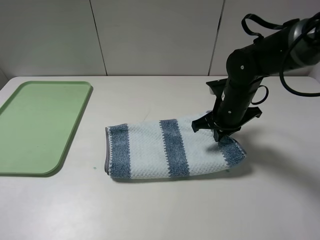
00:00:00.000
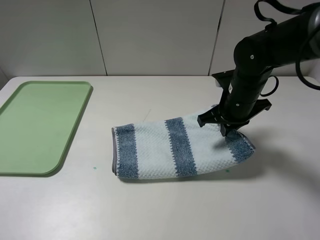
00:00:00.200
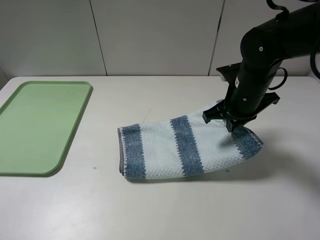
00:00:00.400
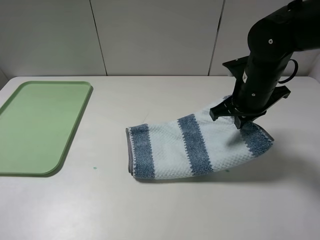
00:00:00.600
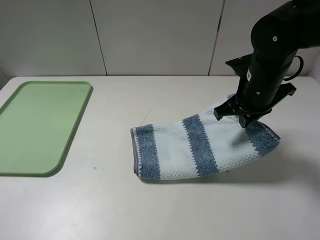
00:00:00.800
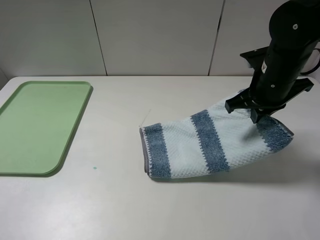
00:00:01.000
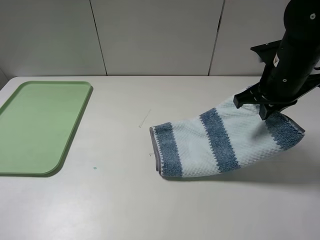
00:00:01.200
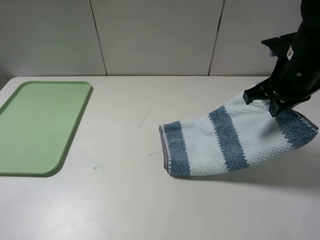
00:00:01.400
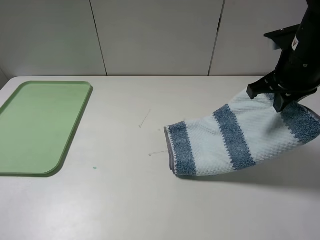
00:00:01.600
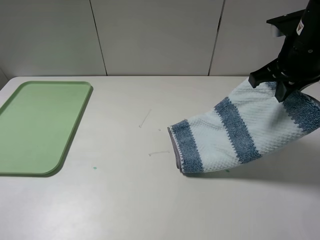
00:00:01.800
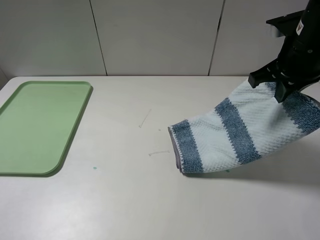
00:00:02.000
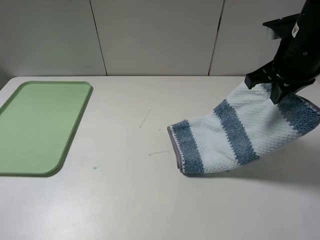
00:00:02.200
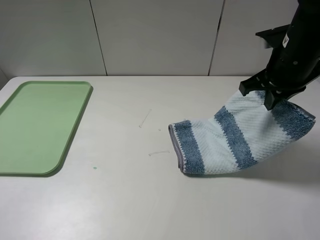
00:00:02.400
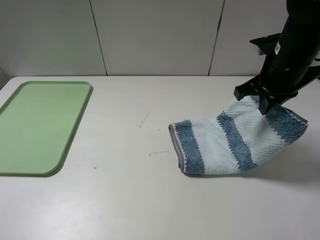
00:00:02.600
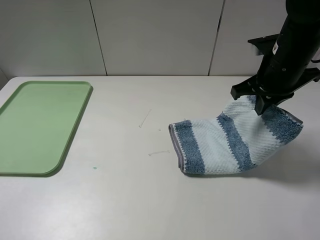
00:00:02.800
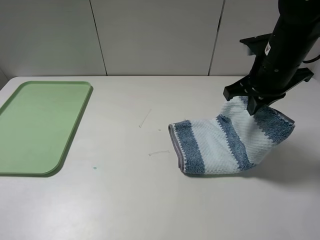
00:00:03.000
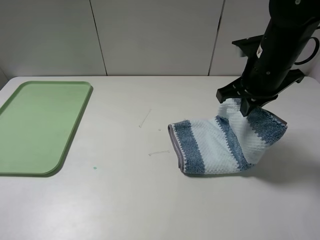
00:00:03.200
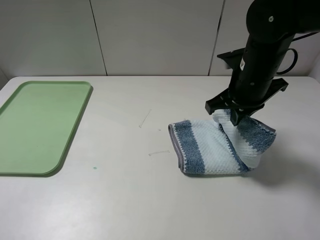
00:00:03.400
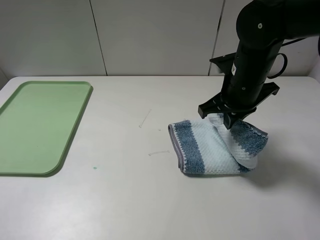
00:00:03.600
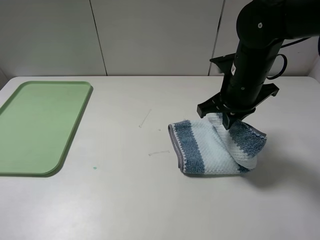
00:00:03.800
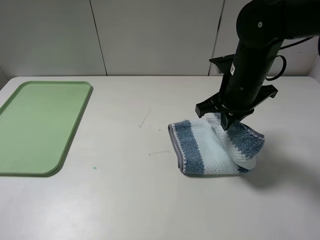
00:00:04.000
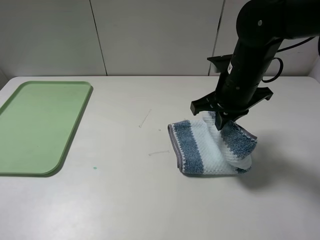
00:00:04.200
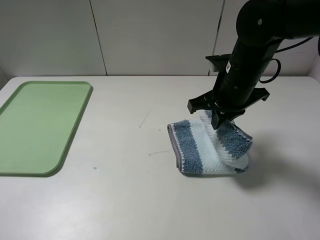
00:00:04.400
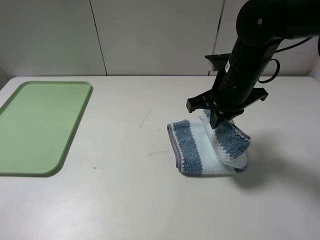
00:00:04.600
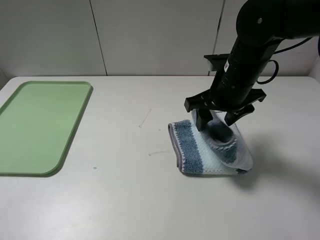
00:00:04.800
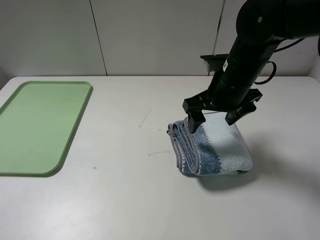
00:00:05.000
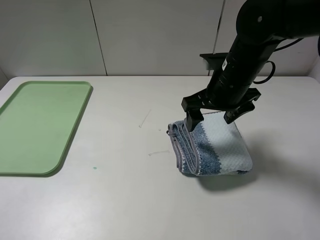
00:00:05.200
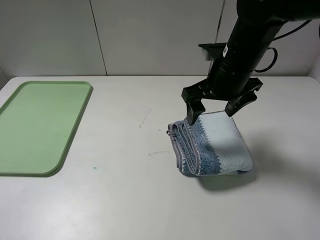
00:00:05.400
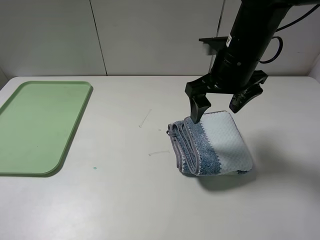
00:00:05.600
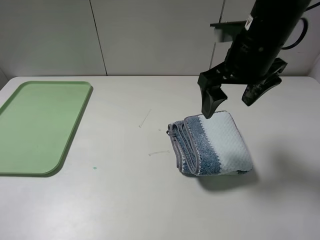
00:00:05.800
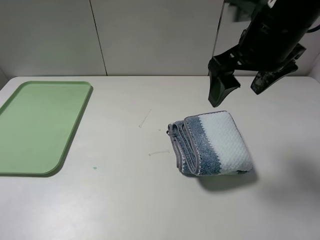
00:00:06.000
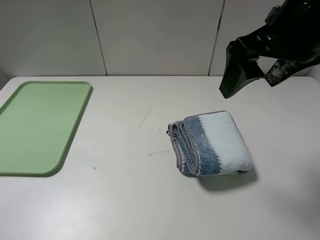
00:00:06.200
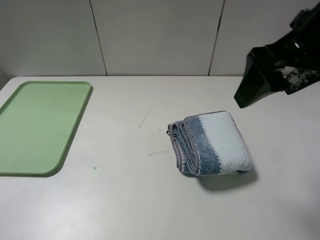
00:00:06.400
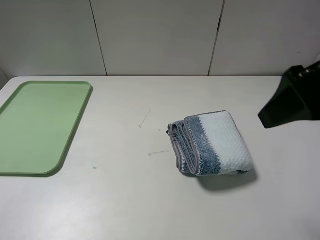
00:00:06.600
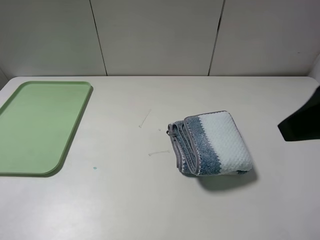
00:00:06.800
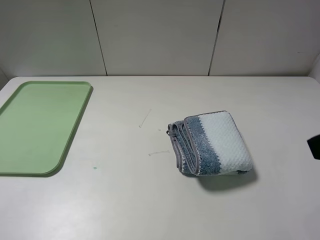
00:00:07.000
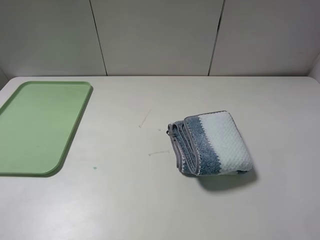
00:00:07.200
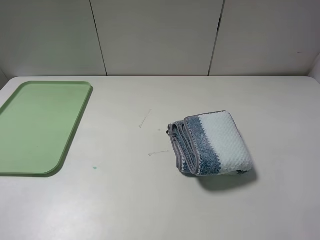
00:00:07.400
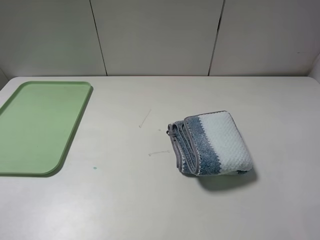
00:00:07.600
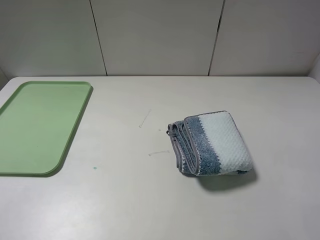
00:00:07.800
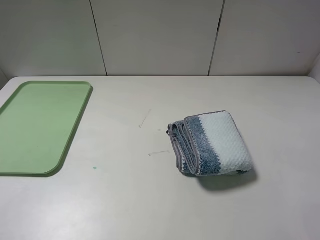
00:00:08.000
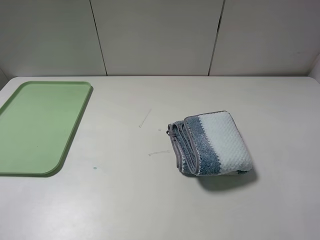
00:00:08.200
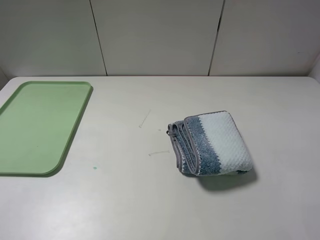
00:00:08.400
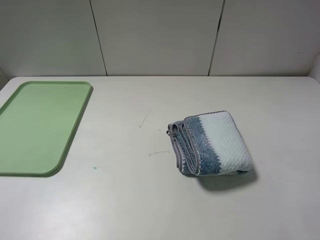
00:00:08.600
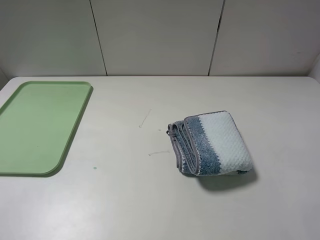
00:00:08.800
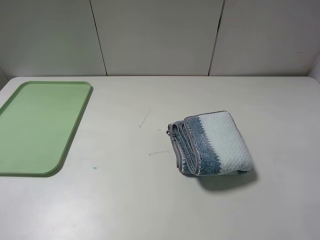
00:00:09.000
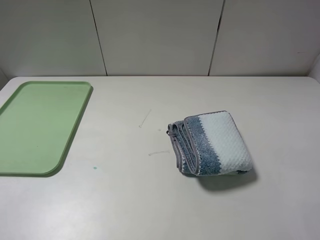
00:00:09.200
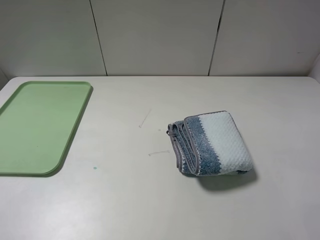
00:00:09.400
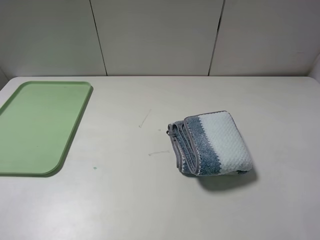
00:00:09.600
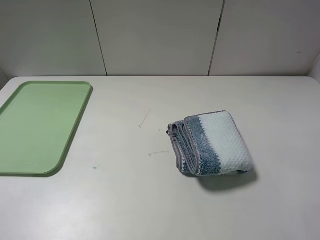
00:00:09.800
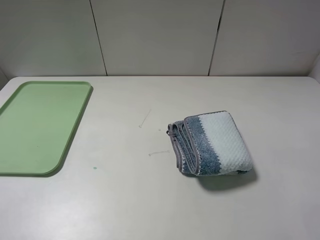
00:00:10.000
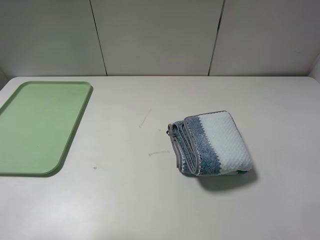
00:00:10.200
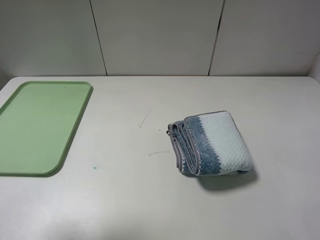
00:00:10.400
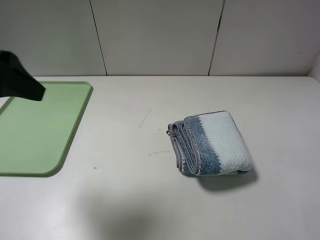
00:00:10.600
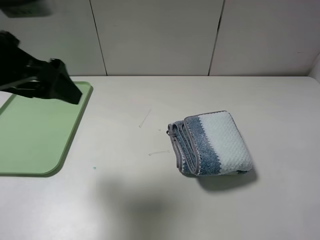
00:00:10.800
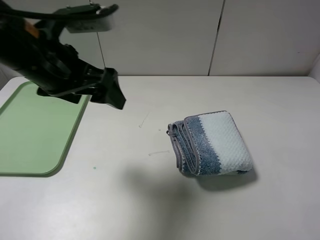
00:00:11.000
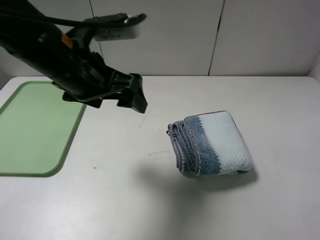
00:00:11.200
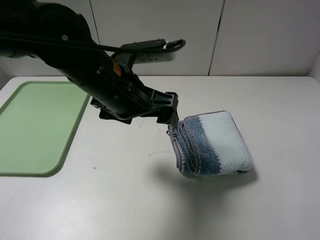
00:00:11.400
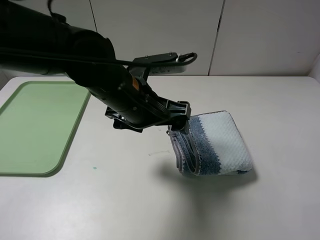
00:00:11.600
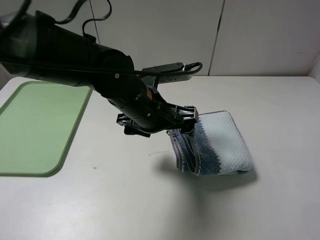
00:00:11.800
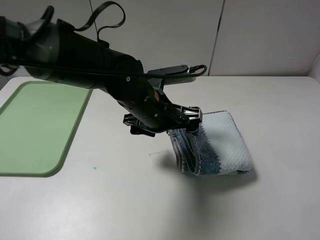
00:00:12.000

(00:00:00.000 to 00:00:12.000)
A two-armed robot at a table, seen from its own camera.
Step, 00:00:00.000 - 00:00:05.200: Fold the blue white towel from right to left with right gripper.
00:00:00.000 - 00:00:01.600: The right gripper heads upward and to the right, covering approximately 15 cm.
00:00:01.600 - 00:00:03.000: The grippers make only small movements.
00:00:03.000 - 00:00:04.400: The right gripper shifts roughly 5 cm to the left.
00:00:04.400 - 00:00:06.000: The right gripper shifts approximately 10 cm upward, and opens its fingers.
00:00:06.000 - 00:00:07.600: The right gripper travels backward and to the right by roughly 30 cm.
00:00:09.000 - 00:00:10.400: The left gripper travels forward and upward by approximately 15 cm.
00:00:10.400 - 00:00:12.000: The left gripper is displaced to the right, downward and forward by roughly 35 cm.

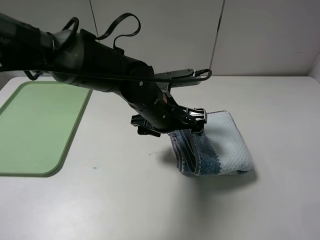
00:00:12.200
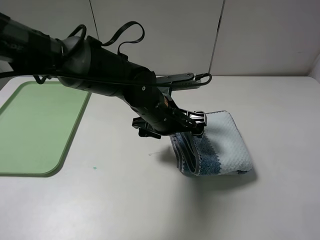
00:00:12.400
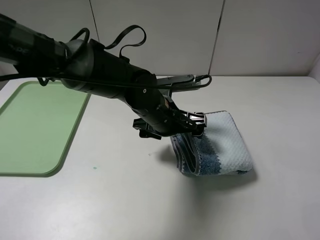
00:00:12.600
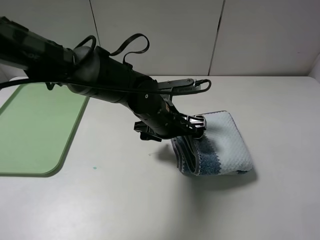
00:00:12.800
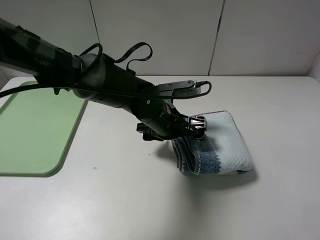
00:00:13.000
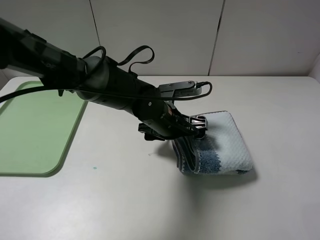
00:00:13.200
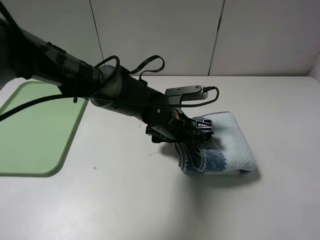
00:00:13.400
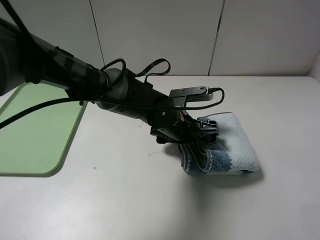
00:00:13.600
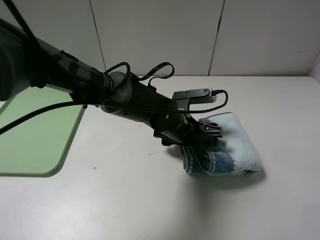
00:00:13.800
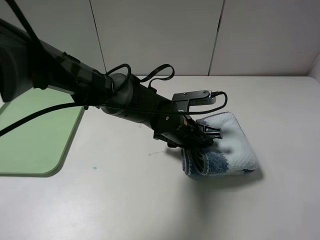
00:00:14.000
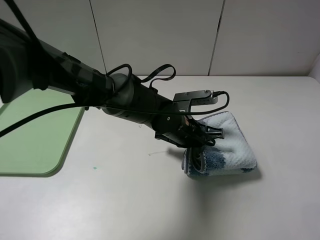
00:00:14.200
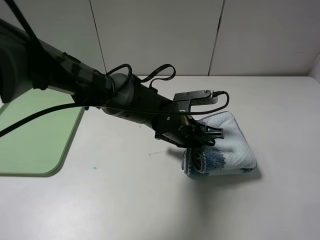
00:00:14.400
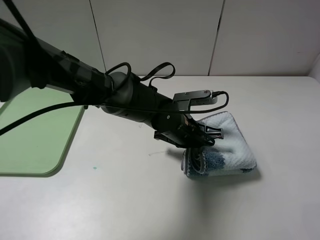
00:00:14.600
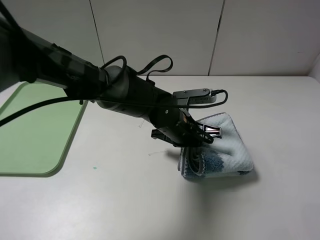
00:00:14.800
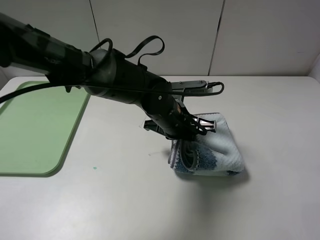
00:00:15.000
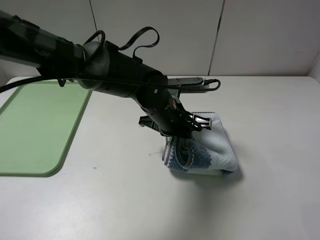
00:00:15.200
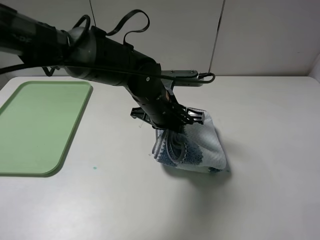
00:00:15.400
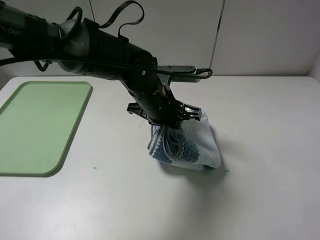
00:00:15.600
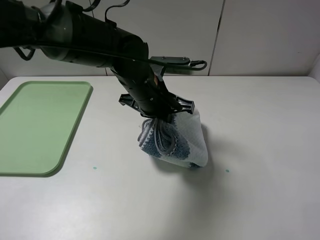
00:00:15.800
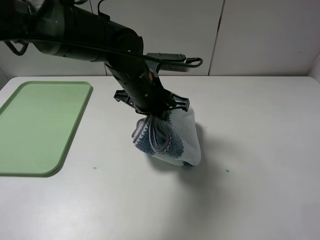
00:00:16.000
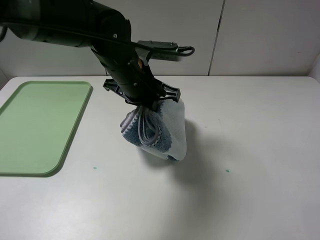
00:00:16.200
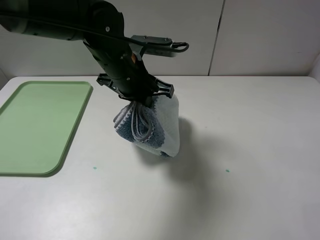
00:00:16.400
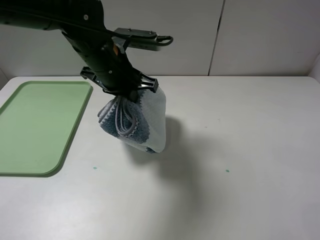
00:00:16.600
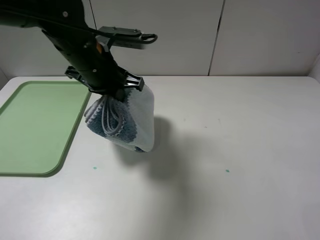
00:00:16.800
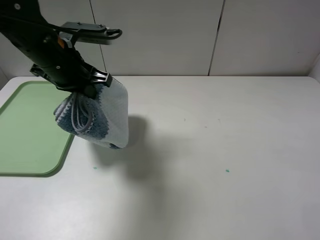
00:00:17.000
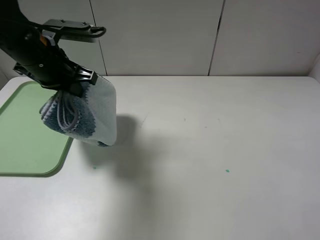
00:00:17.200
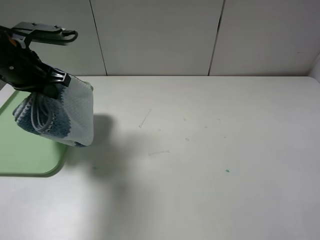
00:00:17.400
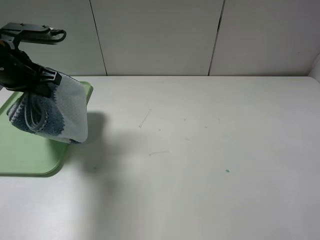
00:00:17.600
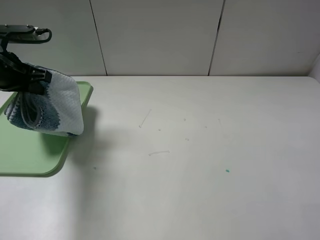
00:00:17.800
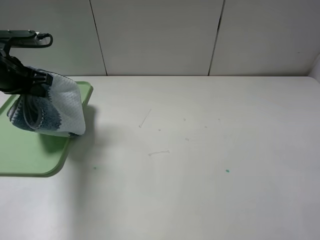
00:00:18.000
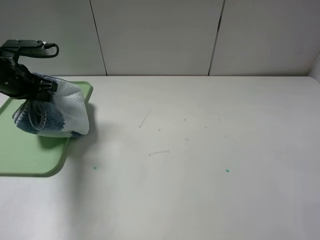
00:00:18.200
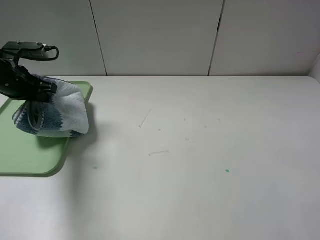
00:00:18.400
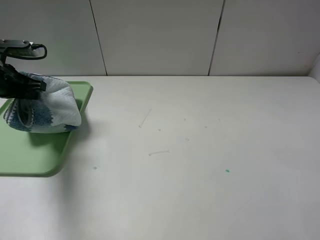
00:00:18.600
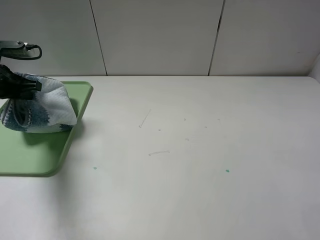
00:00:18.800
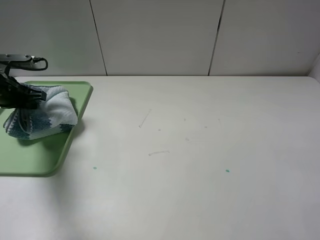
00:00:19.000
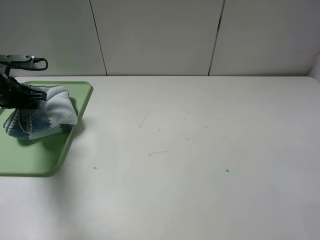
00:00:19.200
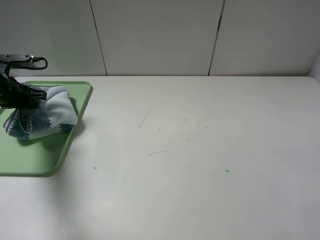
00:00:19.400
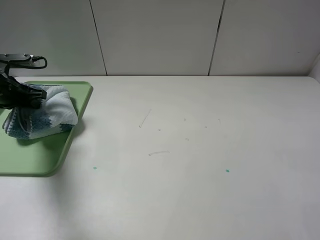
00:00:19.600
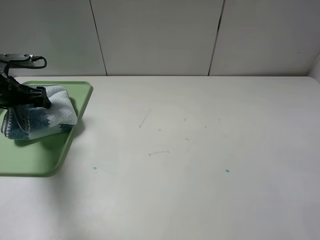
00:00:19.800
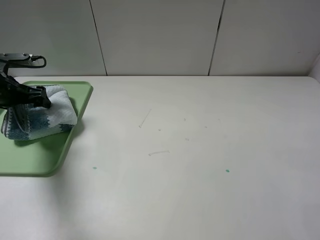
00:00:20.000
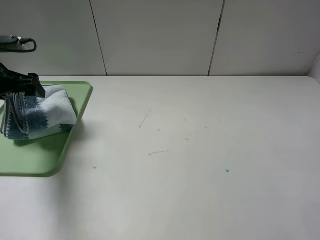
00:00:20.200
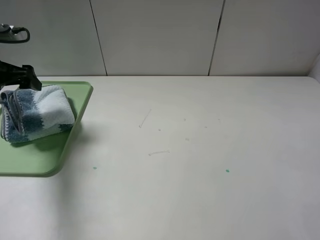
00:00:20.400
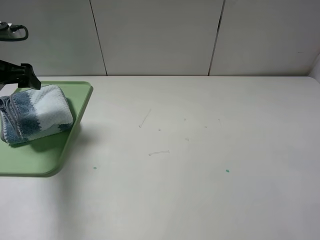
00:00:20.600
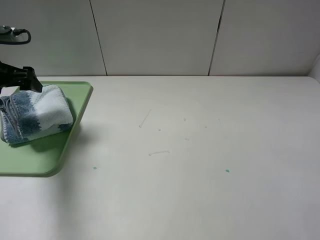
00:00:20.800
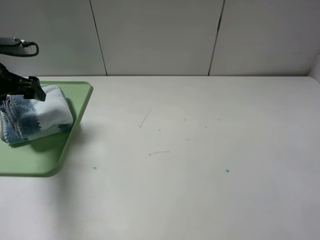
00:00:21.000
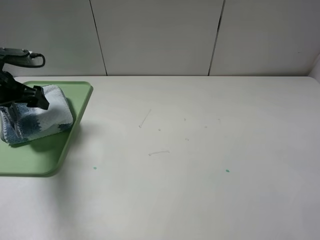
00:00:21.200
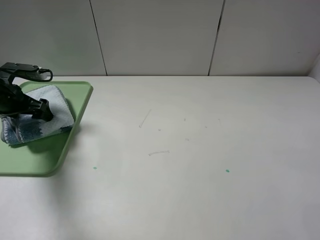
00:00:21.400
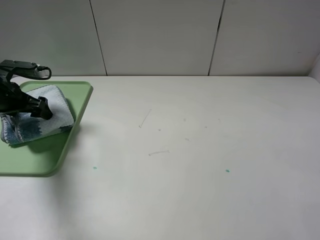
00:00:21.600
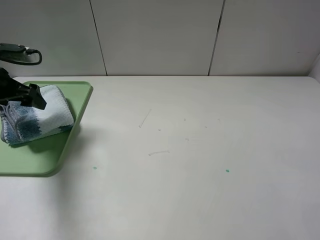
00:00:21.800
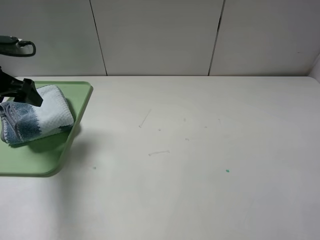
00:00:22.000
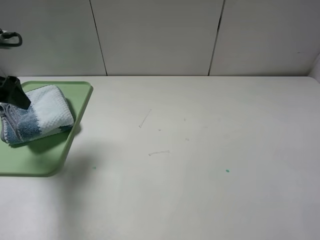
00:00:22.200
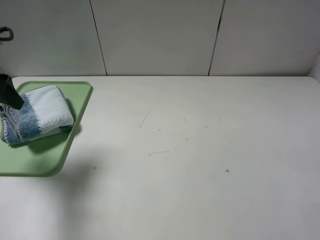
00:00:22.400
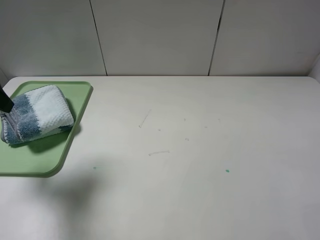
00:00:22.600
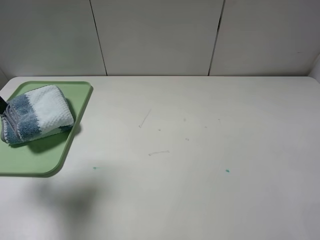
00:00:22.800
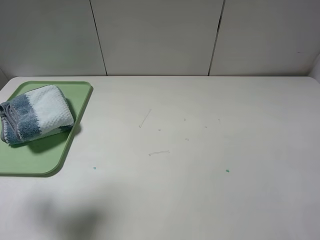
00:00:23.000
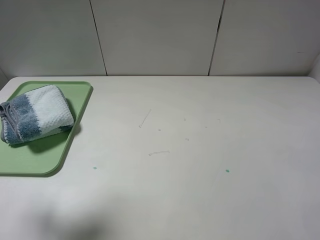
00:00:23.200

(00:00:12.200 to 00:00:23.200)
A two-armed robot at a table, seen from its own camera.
Step, 00:00:12.200 - 00:00:14.200: Grasp the blue white towel with the left gripper.
00:00:12.200 - 00:00:13.800: The left gripper is displaced downward by approximately 5 cm.
00:00:13.800 - 00:00:15.400: The left gripper moves upward, approximately 5 cm, and closes up.
00:00:15.400 - 00:00:17.000: The left gripper is displaced to the left and upward by roughly 20 cm.
00:00:17.000 - 00:00:18.400: The left gripper heads to the left and downward, covering roughly 15 cm.
00:00:18.400 - 00:00:20.000: The left gripper opens its fingers.
00:00:20.000 - 00:00:21.600: The left gripper moves some 5 cm upward and comes back.
00:00:21.600 - 00:00:23.200: The left gripper is displaced backward and upward by roughly 25 cm.
